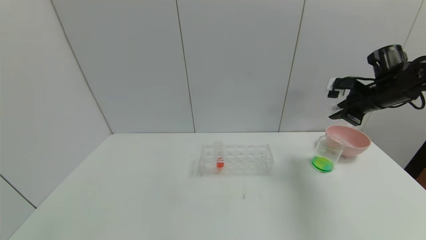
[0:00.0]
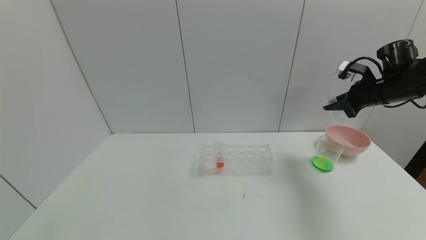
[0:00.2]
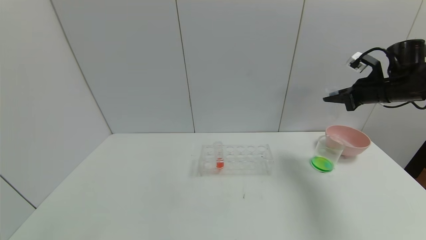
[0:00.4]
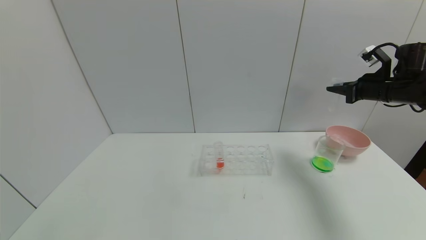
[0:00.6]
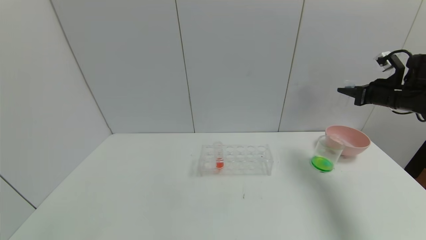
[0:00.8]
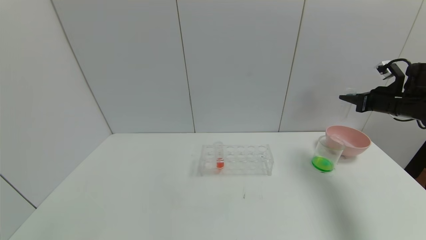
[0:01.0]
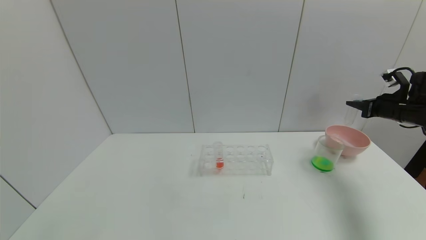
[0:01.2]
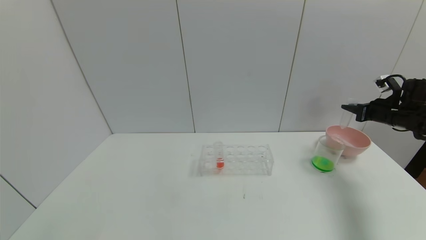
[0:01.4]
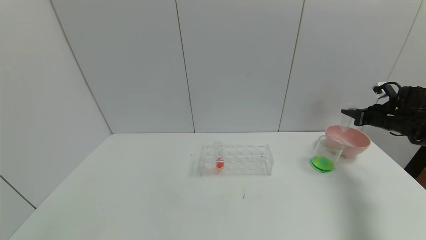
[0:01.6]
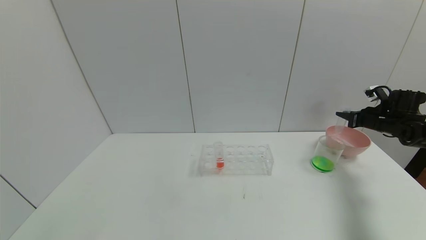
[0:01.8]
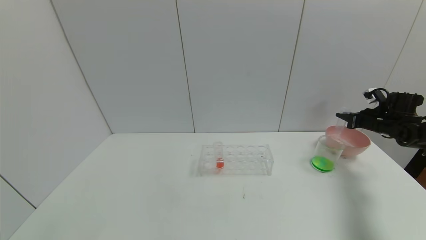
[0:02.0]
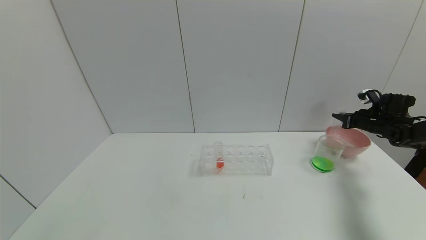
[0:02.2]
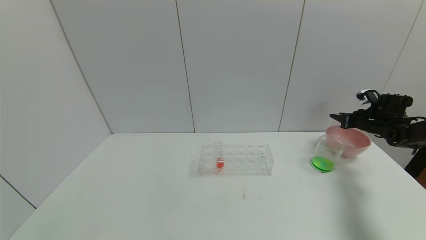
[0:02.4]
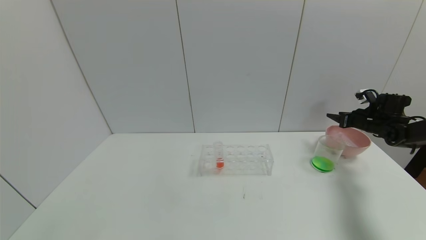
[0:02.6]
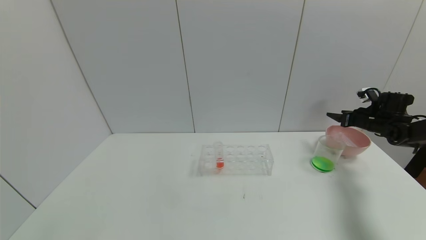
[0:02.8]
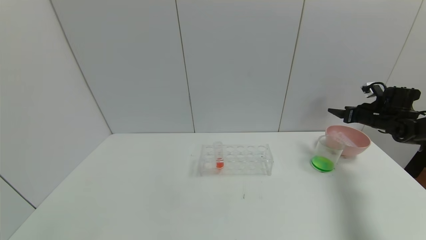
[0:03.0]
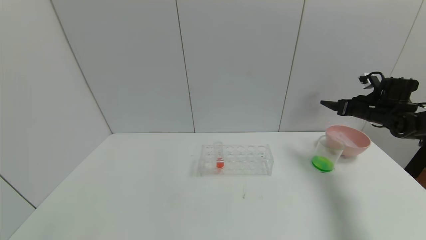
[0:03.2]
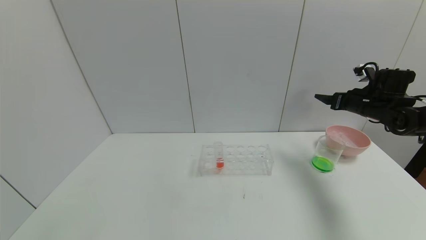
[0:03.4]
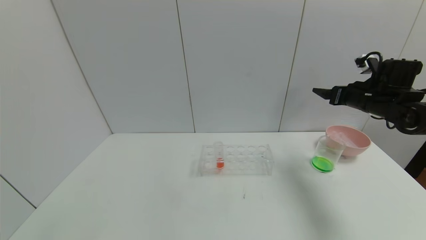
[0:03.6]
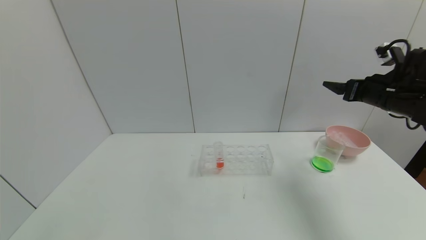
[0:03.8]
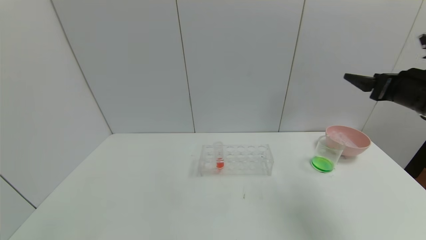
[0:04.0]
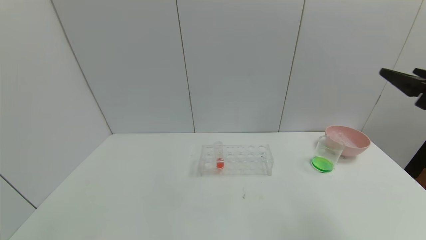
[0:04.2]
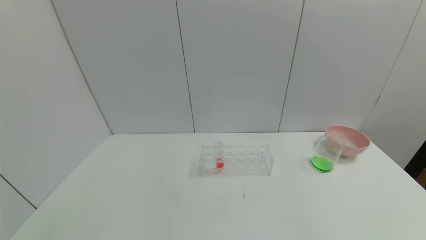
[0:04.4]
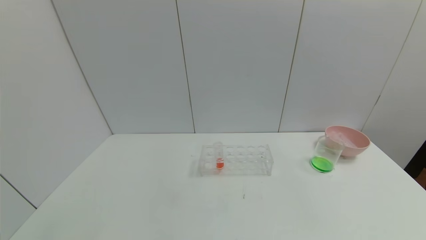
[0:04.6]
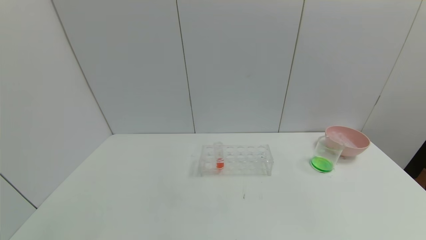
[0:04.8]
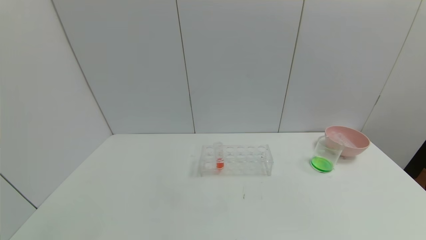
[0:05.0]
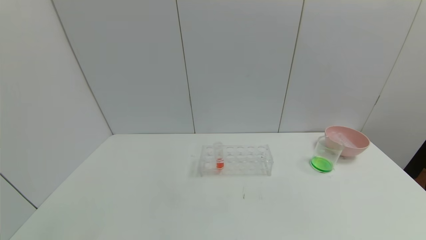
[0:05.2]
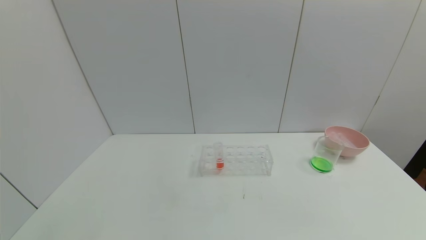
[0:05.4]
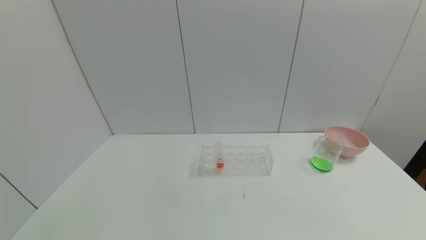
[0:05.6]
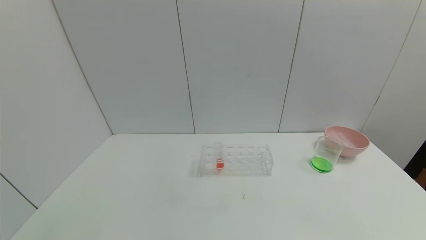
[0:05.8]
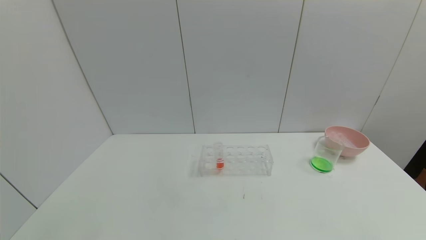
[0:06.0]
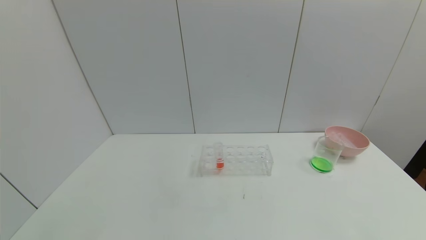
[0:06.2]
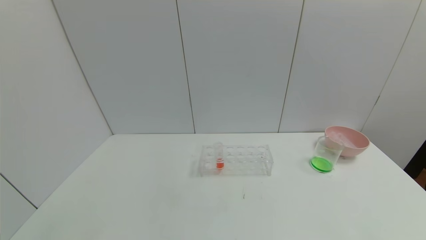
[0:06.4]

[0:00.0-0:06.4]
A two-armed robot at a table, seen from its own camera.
Task of the whole recording: pick up the test tube with yellow pigment and the test tube with blue pigment by grippers and pour them into the beaker.
Step, 0:00.0 to 0:02.8: Place the test tube into the bowl with the right gripper.
0:00.0 to 0:01.6: The right gripper travels to the right and downward by about 15 cm.
0:01.6 to 0:03.2: The right gripper moves roughly 5 cm, and opens up.
0:03.2 to 0:04.8: The right gripper is displaced backward by some 50 cm.
